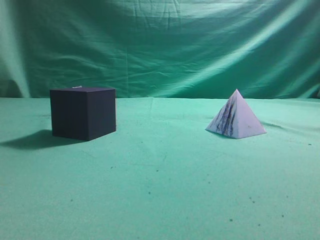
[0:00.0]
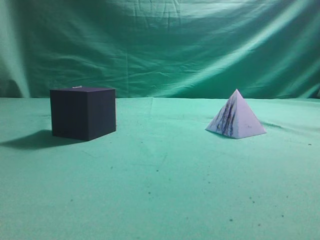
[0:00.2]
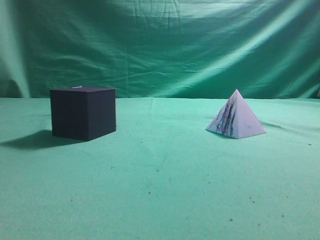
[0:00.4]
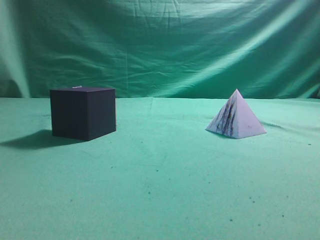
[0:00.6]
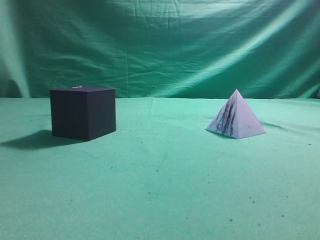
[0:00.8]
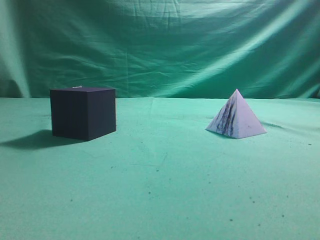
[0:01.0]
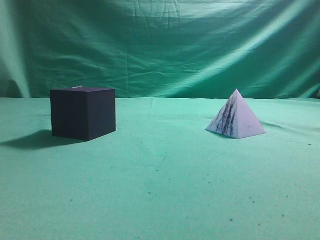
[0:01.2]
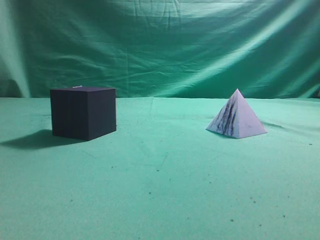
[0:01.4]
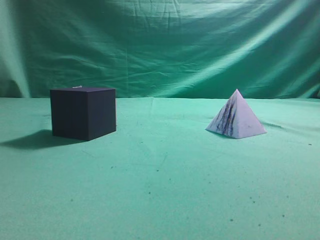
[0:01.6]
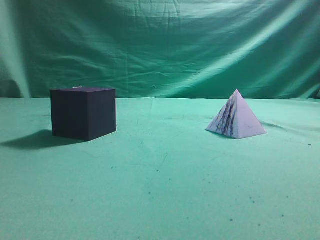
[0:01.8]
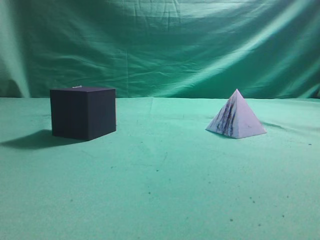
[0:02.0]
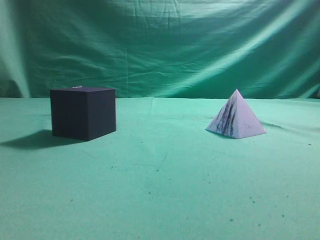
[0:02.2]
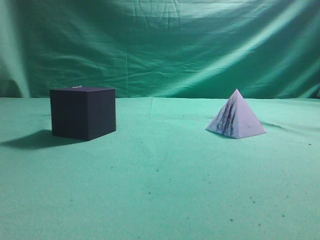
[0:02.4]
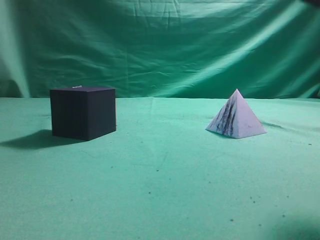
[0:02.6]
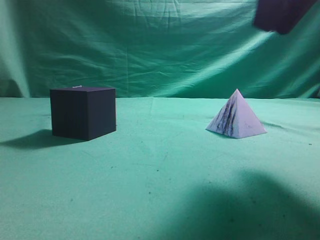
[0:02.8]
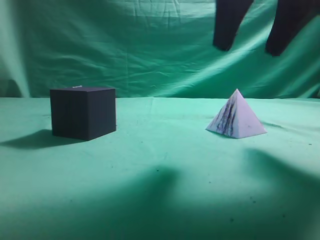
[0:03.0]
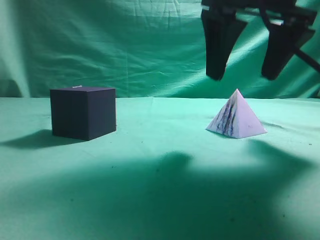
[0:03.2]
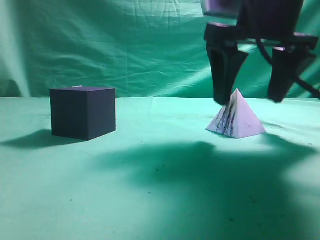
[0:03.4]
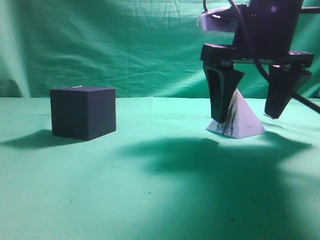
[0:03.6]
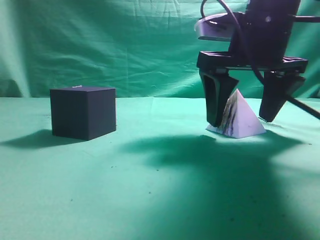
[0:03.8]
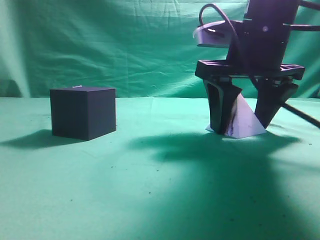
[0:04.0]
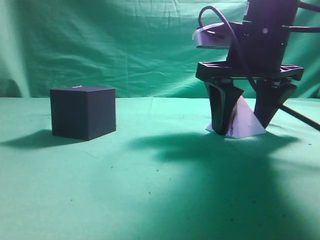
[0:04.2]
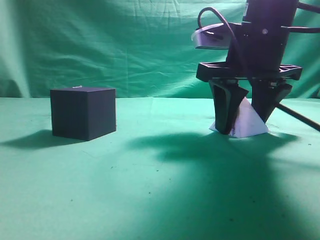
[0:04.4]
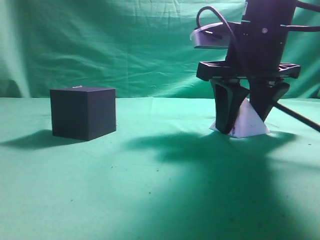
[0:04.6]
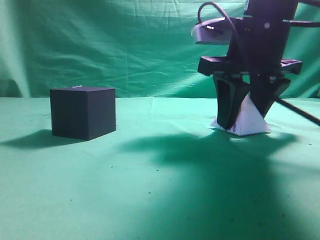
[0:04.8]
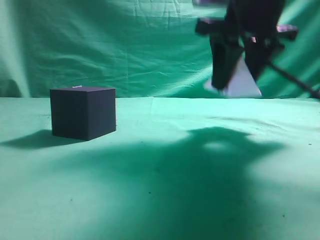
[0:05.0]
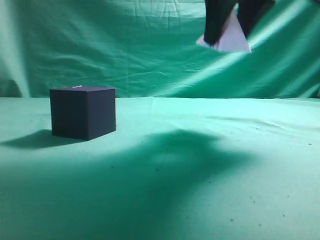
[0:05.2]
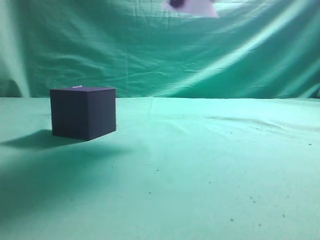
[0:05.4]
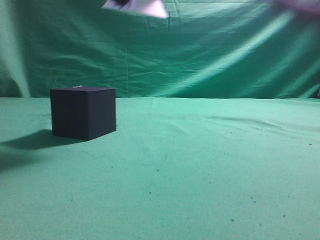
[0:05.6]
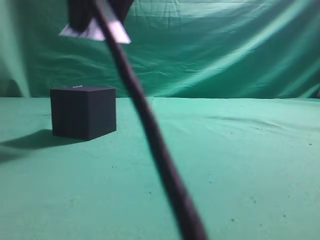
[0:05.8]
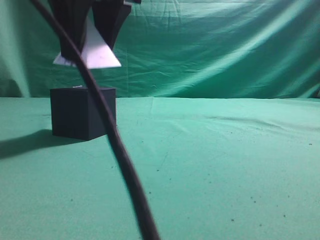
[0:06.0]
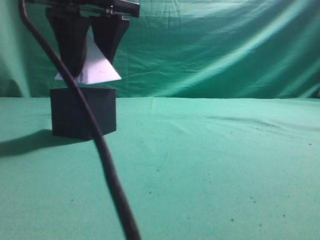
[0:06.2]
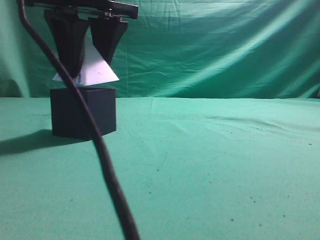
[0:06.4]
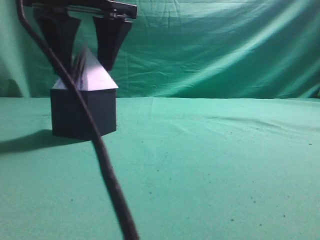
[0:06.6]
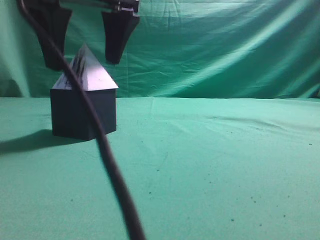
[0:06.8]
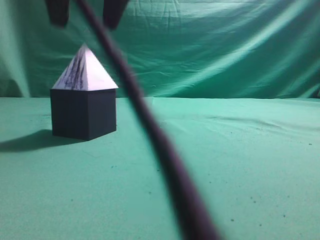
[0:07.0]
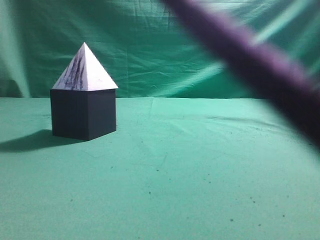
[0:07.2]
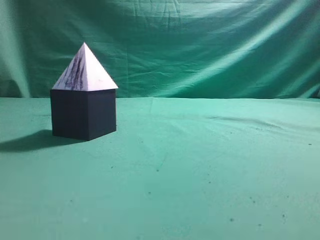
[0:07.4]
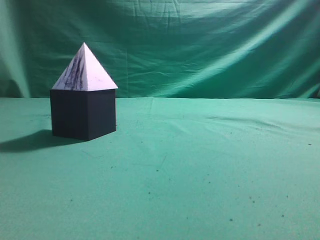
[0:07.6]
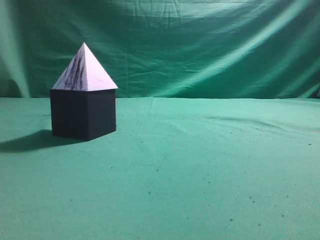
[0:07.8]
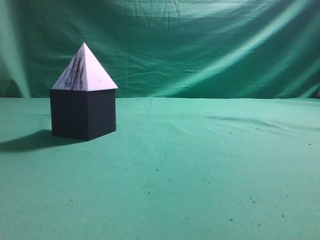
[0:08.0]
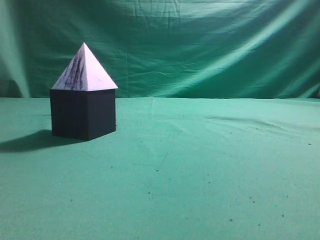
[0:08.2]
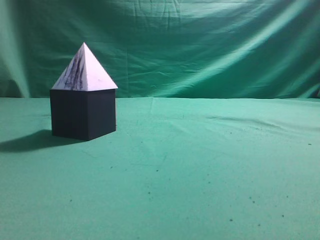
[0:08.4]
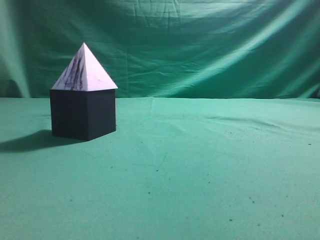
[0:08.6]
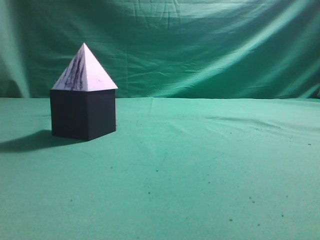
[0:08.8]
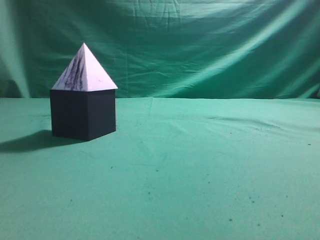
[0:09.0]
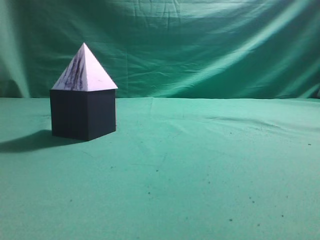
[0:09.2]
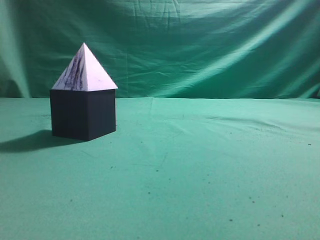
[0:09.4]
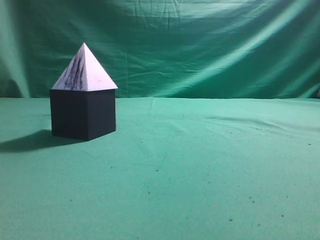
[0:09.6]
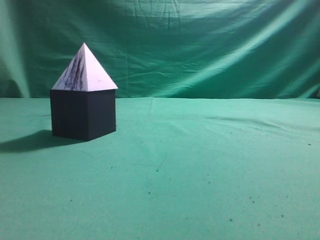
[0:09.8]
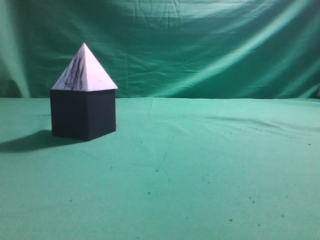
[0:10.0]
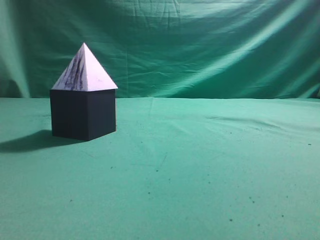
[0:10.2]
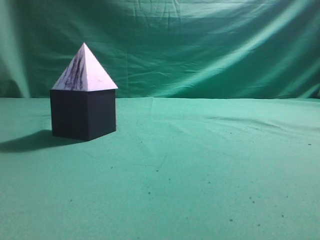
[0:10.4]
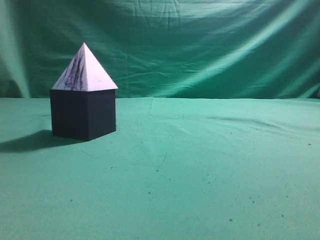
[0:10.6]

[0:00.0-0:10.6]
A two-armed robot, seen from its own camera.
Task of the whole recording: pick up the square pyramid from the table and place it on the cube block.
Step, 0:00.0 to 0:05.0: Grasp the triangular block.
Step, 0:05.2 to 0:06.8: Place the block onto the cube-shaped block.
0:01.6 to 0:03.0: The right gripper shifts roughly 25 cm forward and to the left, and opens its fingers.
0:03.0 to 0:04.6: The right gripper goes roughly 10 cm downward and forward, and closes up.
0:04.6 to 0:06.0: The right gripper heads to the left and upward, covering about 20 cm.
0:06.0 to 0:07.6: The right gripper moves upward, to the right and backward, approximately 25 cm, and closes its fingers.

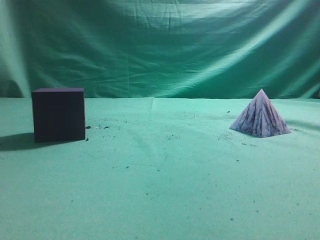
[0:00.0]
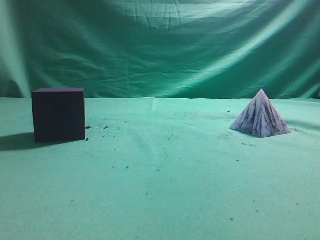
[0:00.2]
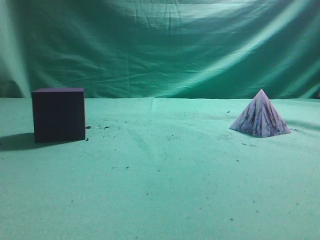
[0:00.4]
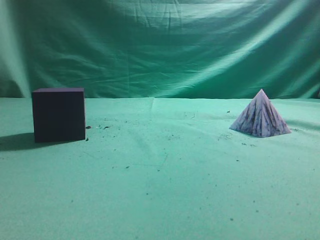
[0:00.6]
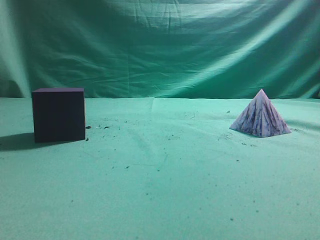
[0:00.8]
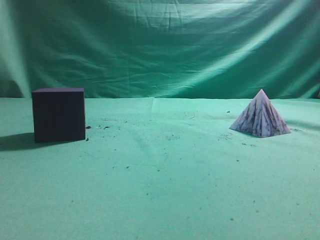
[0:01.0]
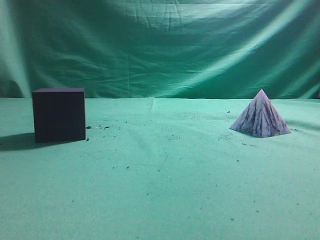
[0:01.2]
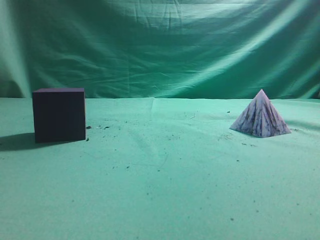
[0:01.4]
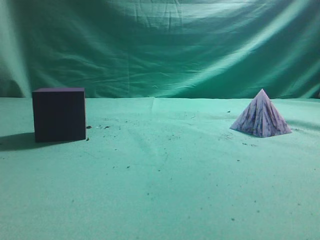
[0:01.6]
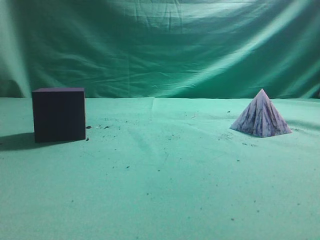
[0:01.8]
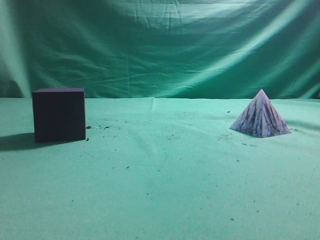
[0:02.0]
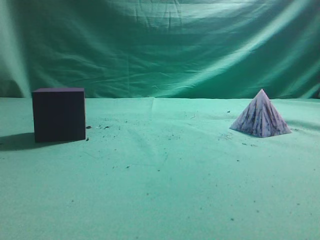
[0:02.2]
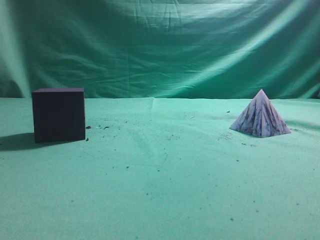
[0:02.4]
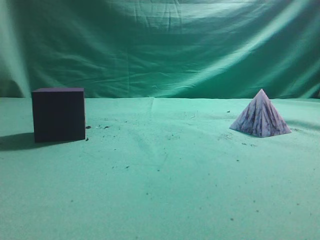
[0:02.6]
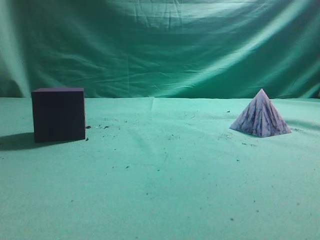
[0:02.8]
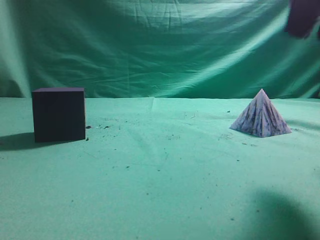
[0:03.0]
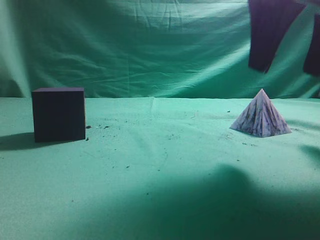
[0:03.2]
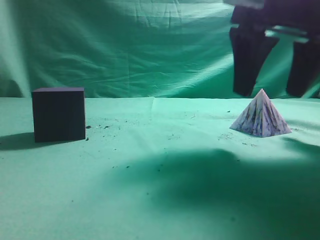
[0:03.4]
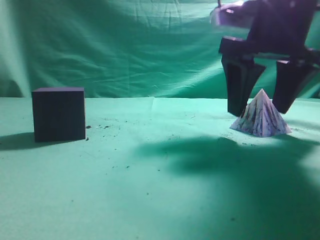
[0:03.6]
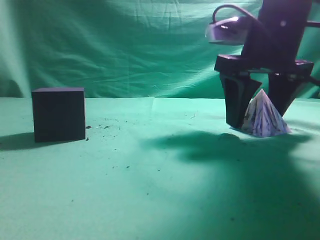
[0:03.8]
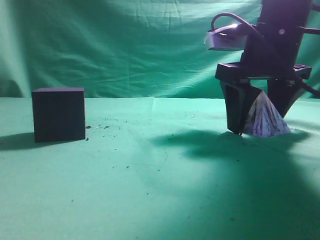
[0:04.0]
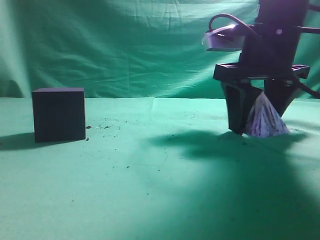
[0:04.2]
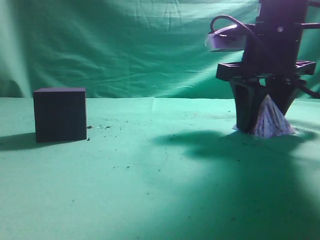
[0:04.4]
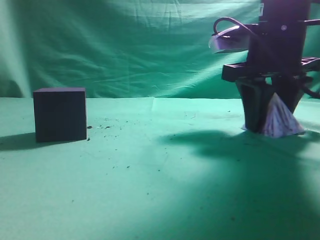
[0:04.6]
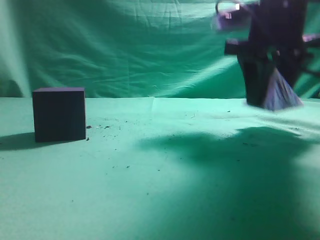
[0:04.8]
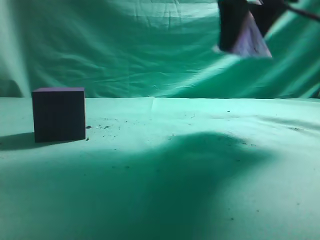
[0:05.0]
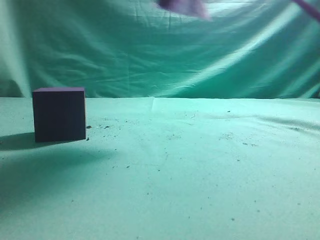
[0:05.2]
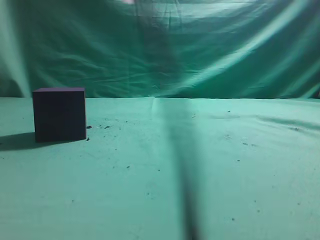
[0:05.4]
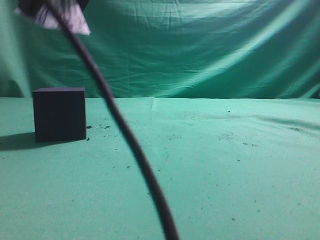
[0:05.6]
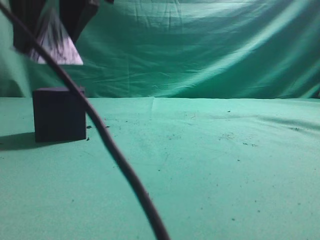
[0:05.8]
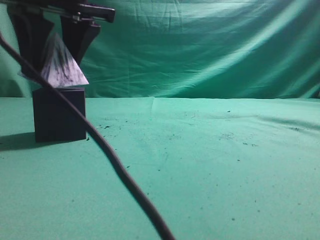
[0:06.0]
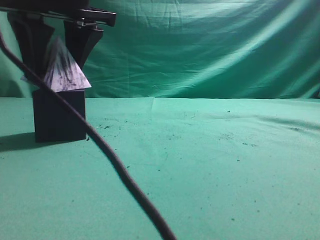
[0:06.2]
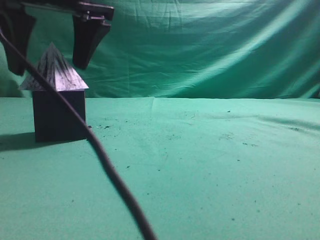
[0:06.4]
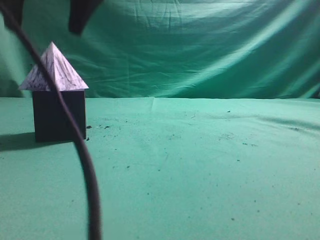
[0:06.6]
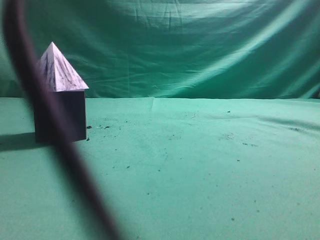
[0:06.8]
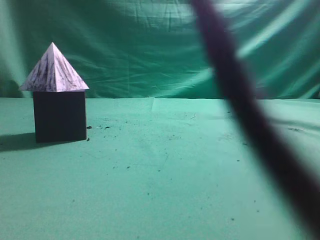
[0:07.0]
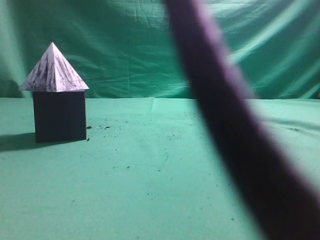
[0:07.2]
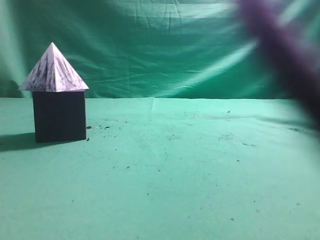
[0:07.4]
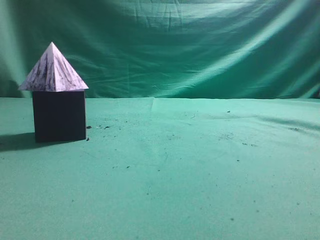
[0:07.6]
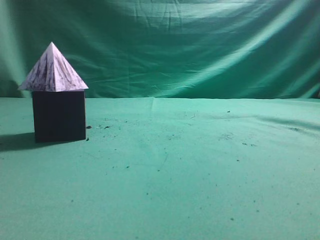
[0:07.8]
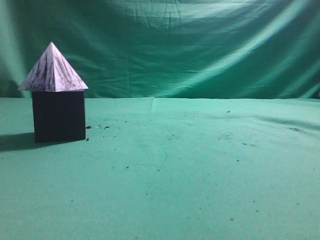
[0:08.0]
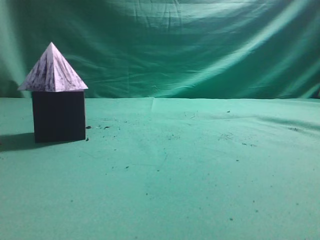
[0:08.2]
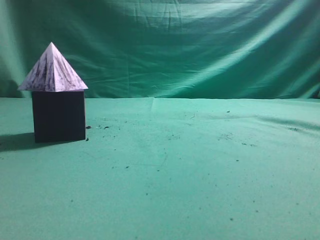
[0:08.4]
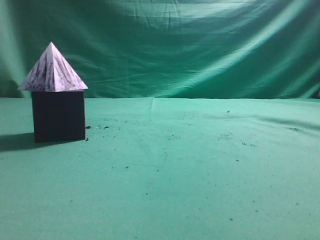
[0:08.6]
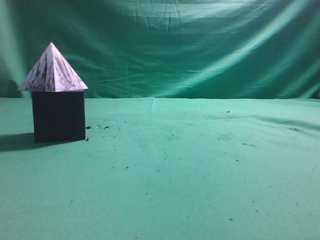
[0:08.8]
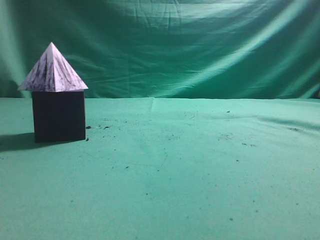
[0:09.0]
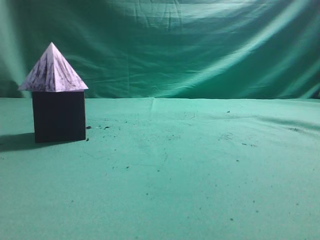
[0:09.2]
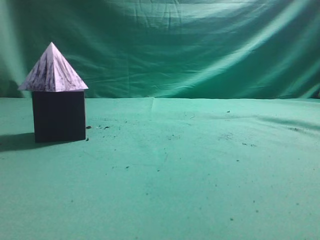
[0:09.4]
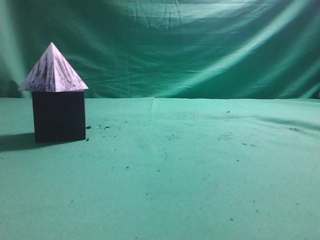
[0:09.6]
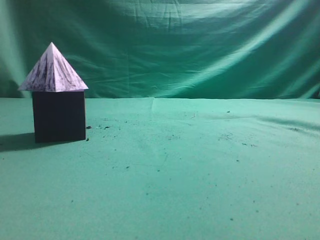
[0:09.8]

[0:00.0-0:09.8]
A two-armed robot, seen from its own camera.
Task of the whole recording: pick up the square pyramid from the table and place it on the cube block.
Step, 0:00.0 to 0:04.8: Grasp the triangular block.
Step, 0:05.0 to 0:06.4: Place the block onto the cube-shaped block.
0:02.8 to 0:04.2: The right gripper goes approximately 20 cm forward and downward, and opens its fingers.
0:04.2 to 0:05.6: The right gripper heads to the left and upward, covering approximately 25 cm.
0:05.6 to 0:07.0: The right gripper moves upward, roughly 15 cm, and closes its fingers.
0:07.0 to 0:08.4: The right gripper moves to the right and backward, roughly 35 cm.

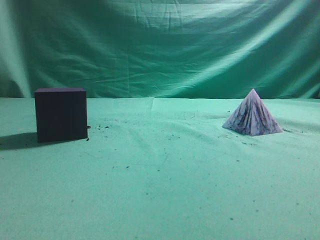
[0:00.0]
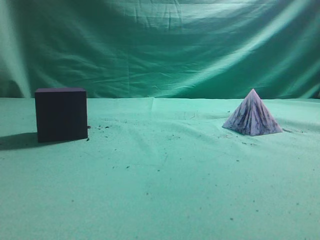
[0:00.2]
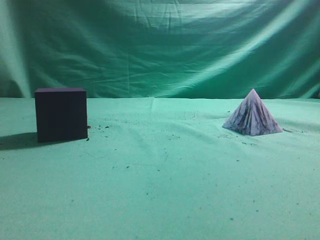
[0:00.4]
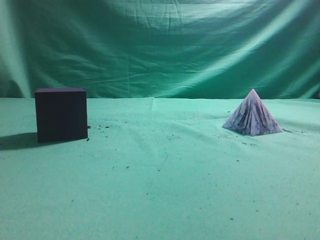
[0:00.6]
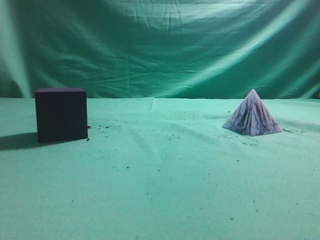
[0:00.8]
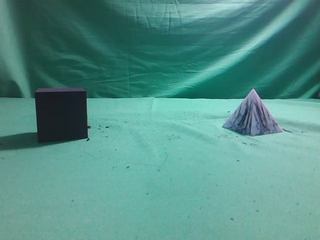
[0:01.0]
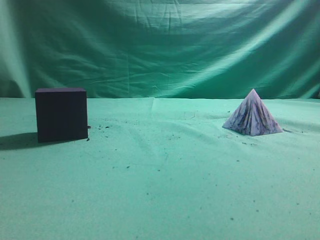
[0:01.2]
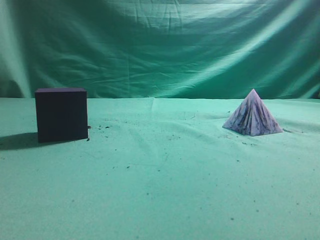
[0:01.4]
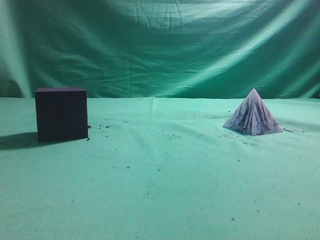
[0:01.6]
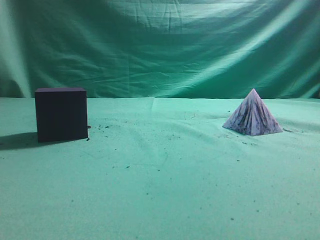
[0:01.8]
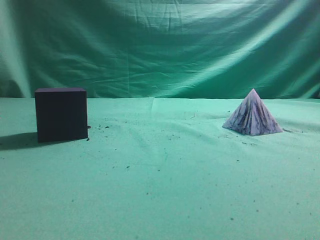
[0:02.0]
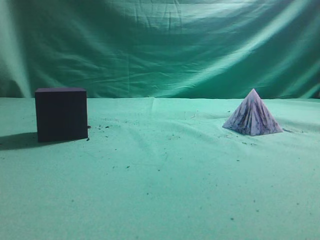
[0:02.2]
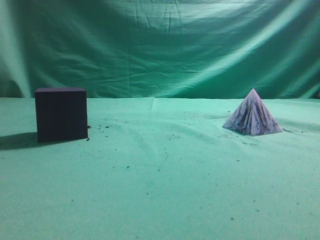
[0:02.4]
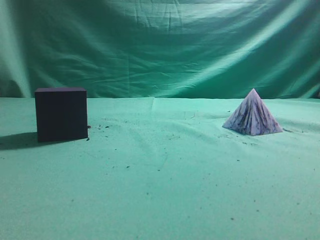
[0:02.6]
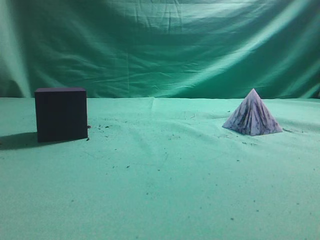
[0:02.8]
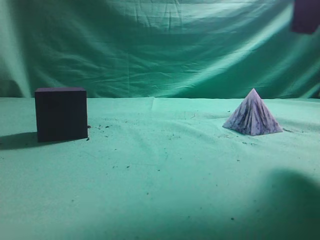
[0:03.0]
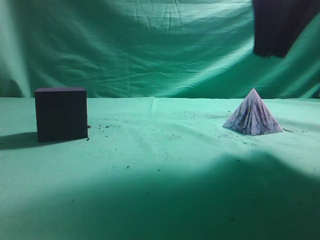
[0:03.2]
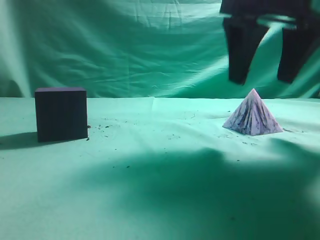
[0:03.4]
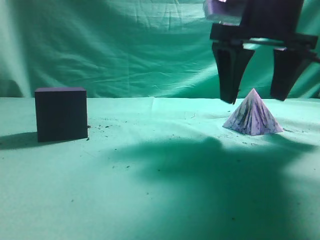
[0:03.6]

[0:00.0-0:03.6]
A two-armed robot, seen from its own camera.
Task of the whole recording: pick up the square pyramid from the table and place it on the cube block.
0:01.8 to 0:03.6: The right gripper heads forward and to the left, covering some 30 cm, and opens.
